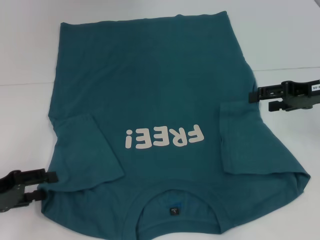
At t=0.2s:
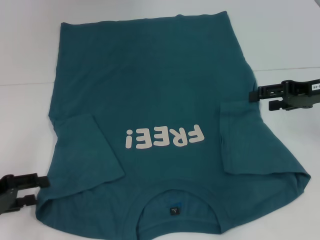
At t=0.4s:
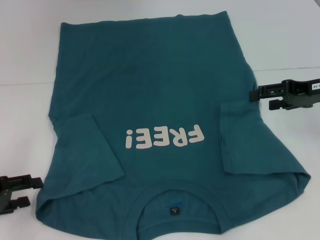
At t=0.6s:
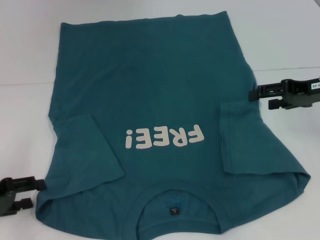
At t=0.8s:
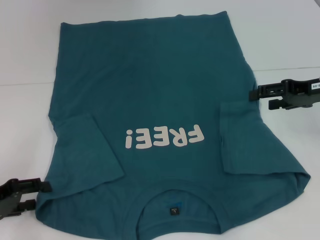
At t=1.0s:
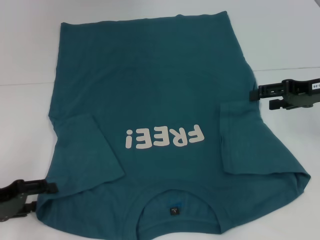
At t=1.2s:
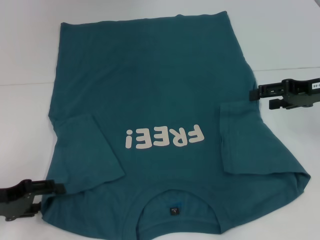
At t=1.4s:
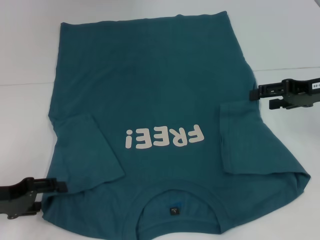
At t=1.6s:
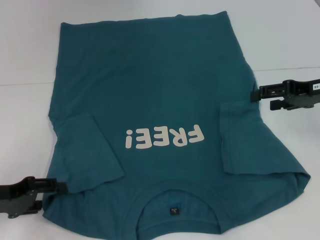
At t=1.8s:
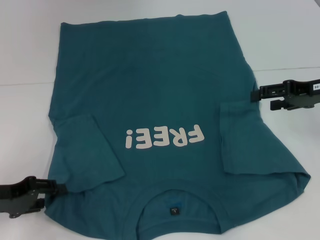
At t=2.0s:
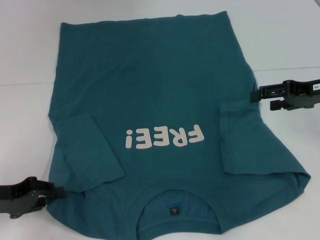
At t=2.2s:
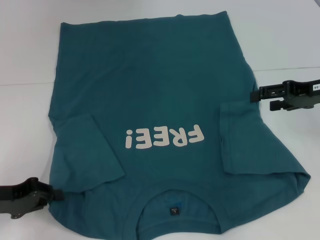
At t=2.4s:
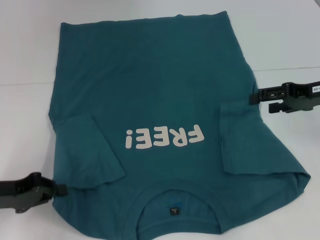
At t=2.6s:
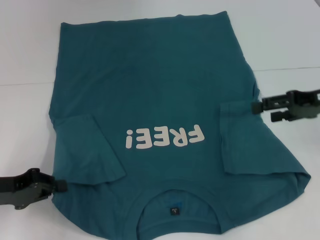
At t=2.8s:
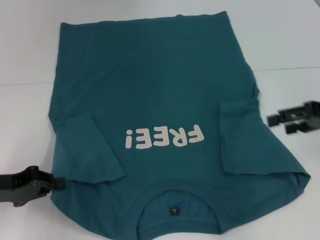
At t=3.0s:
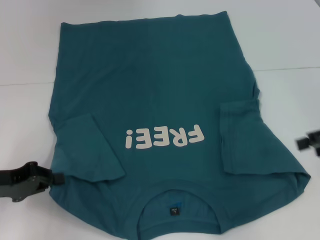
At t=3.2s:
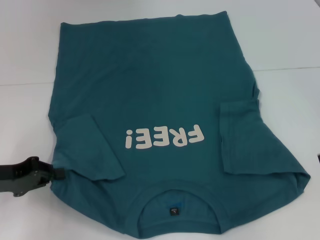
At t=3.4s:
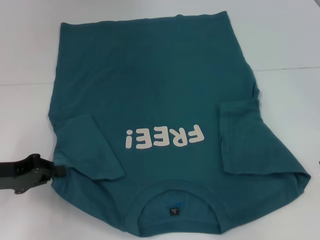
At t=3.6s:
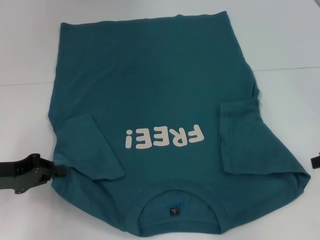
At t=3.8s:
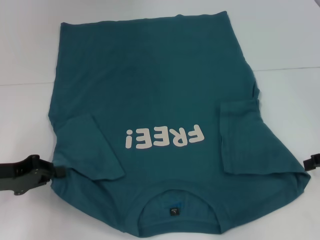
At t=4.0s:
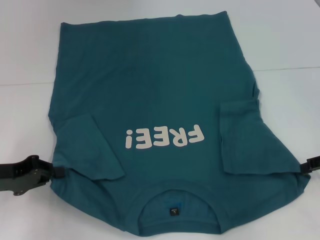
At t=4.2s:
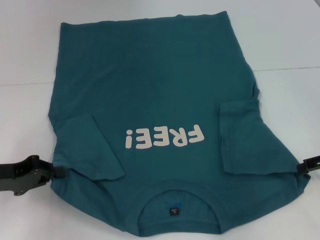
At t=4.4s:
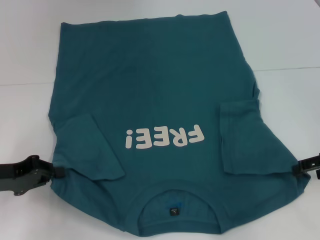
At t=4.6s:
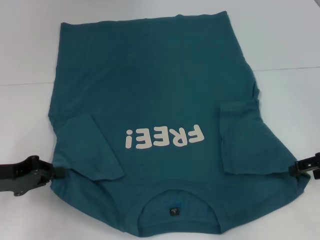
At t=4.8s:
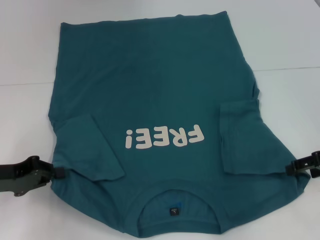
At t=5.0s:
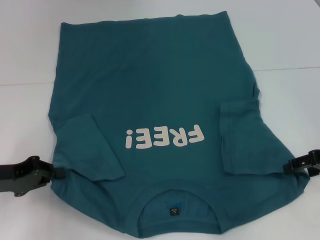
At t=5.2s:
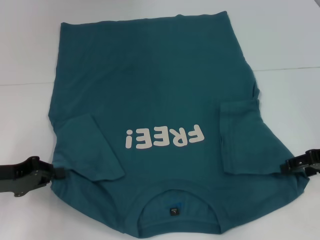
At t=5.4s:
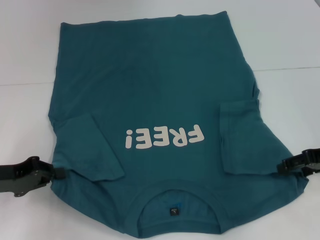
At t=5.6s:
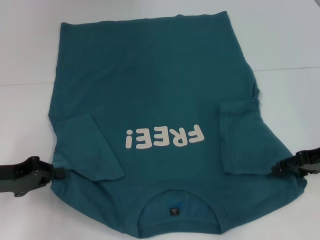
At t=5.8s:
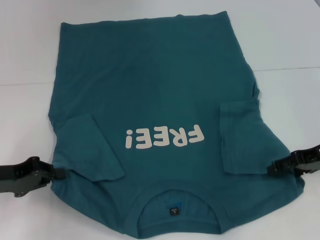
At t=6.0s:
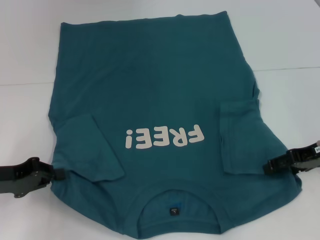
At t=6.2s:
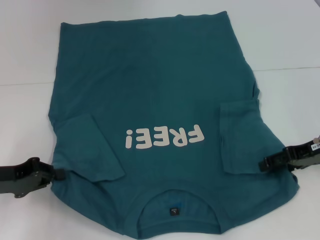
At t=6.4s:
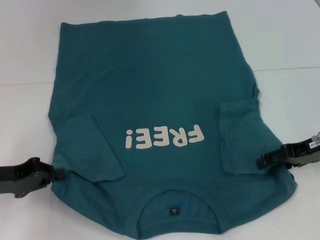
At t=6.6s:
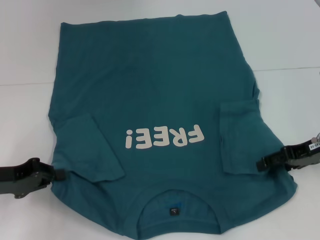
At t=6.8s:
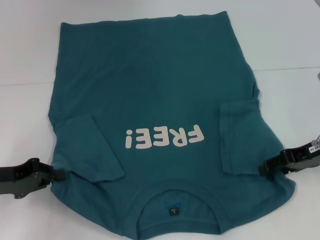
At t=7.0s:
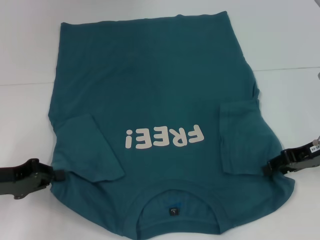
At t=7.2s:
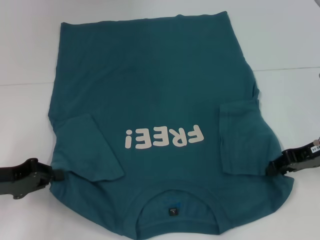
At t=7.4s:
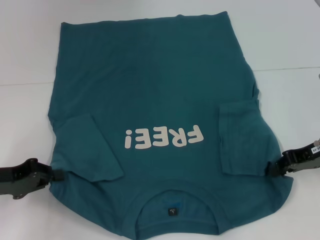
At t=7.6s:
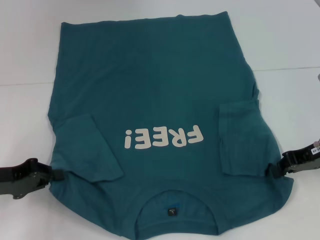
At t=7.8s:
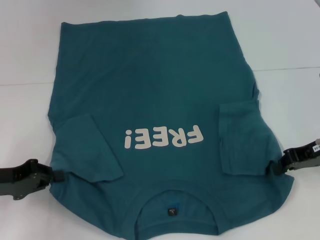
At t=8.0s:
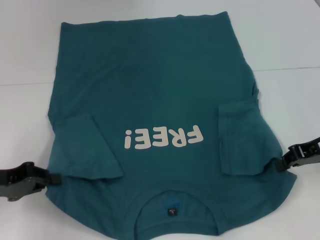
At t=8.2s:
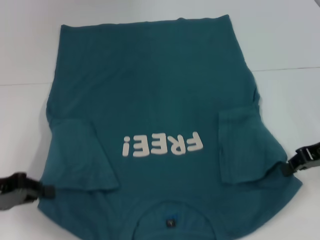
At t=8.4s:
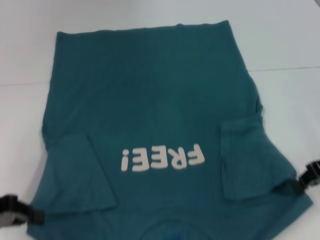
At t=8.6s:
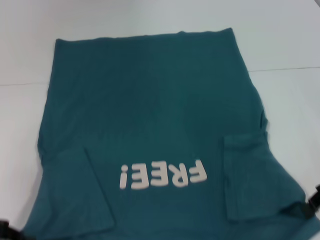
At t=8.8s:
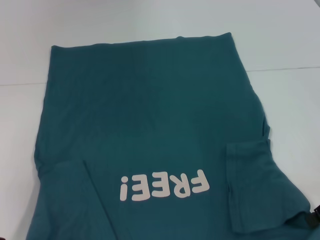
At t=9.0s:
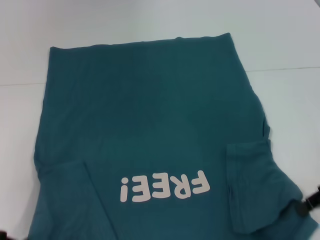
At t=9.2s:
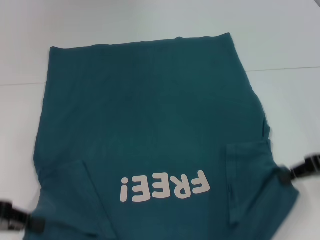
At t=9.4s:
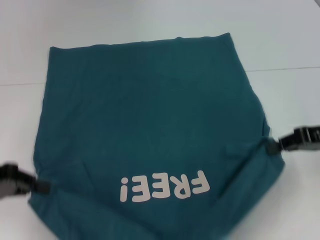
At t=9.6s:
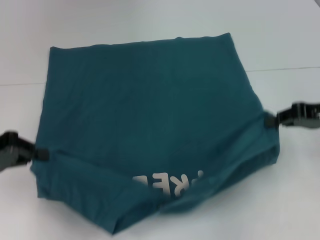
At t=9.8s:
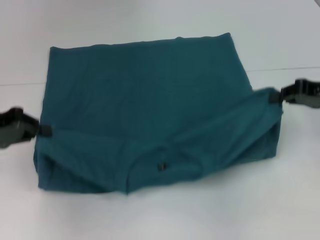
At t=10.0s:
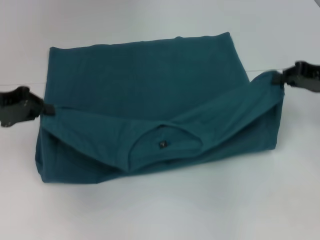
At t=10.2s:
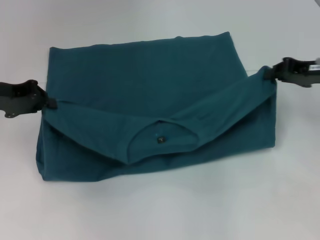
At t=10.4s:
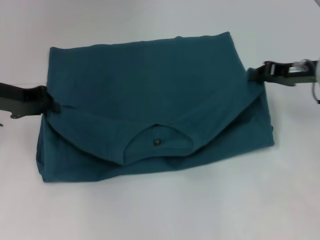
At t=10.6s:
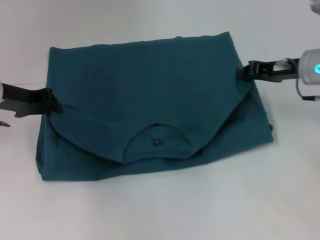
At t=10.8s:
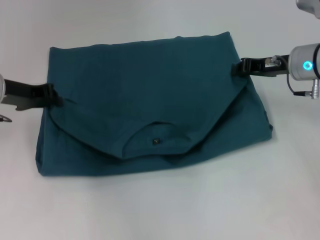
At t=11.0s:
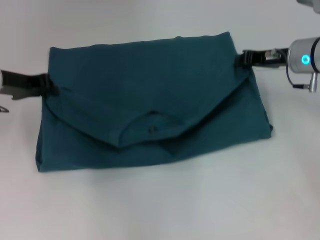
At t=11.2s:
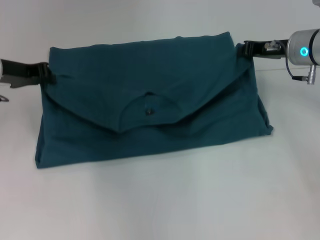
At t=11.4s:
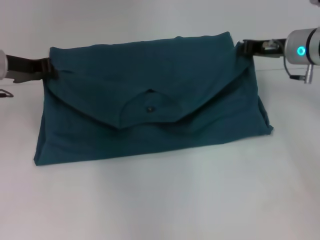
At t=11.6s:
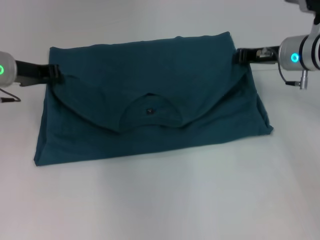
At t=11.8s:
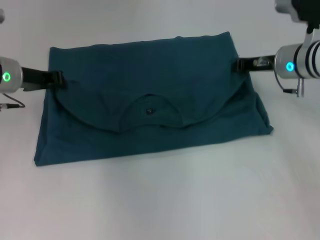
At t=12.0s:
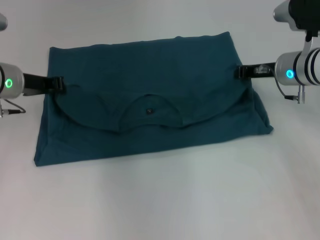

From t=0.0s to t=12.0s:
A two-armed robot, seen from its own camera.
Step, from t=0.0s to t=2.2s: Grab the bottom left corner with your left hand.
Step, from t=2.4s to t=7.4s: Grab the bottom right corner with your right hand.
From t=0.0s to t=1.6s: The grippers make only small movements.
From t=1.6s to t=3.0s: The right gripper is displaced backward and to the right by approximately 10 cm. The left gripper closes up.
From t=3.0s to t=4.4s: The right gripper shifts approximately 5 cm downward.
From t=4.4s to t=6.0s: The right gripper shifts by roughly 5 cm.
From t=6.0s to t=7.6s: The right gripper closes up.
From t=7.6s to t=9.0s: The two grippers go some 5 cm backward.
From t=9.0s to t=10.4s: Both grippers travel together forward, roughly 15 cm.
From t=10.4s to t=12.0s: The left gripper ends up some 5 cm from where it was, while the right gripper heads to the left, covering roughly 5 cm.

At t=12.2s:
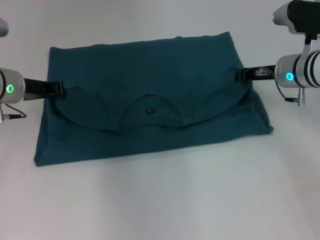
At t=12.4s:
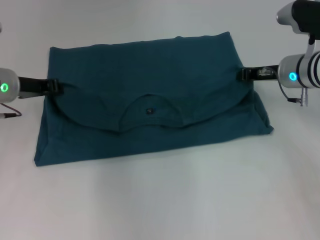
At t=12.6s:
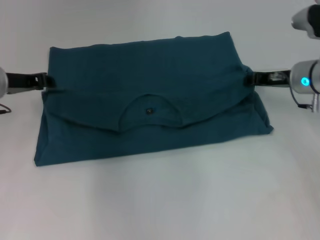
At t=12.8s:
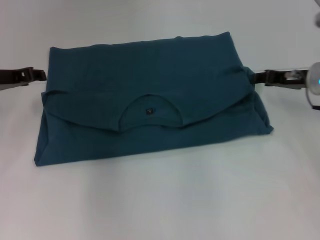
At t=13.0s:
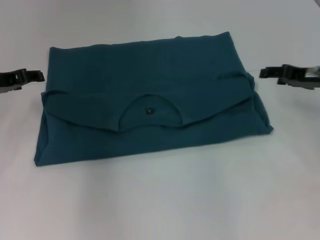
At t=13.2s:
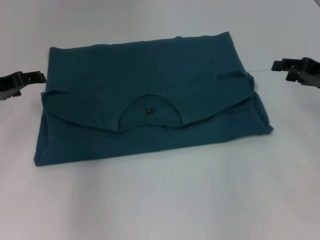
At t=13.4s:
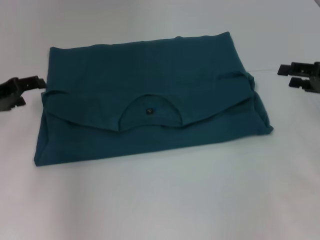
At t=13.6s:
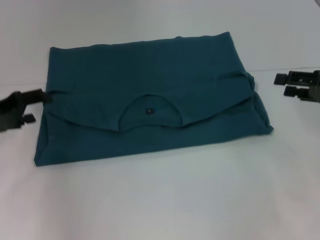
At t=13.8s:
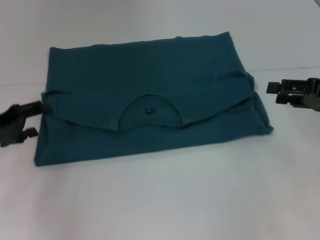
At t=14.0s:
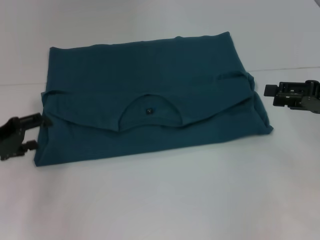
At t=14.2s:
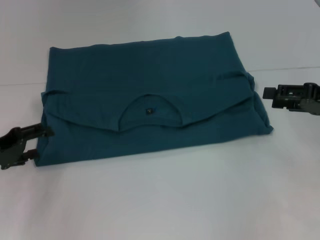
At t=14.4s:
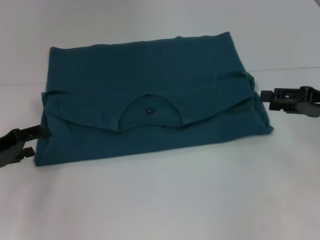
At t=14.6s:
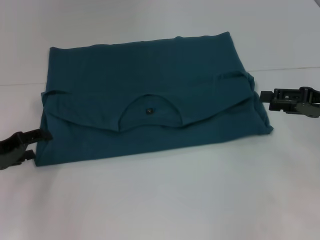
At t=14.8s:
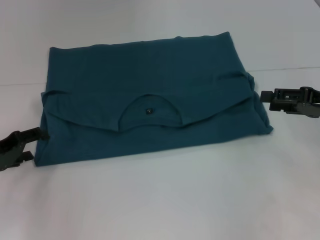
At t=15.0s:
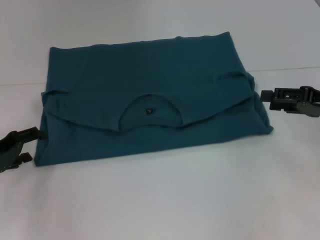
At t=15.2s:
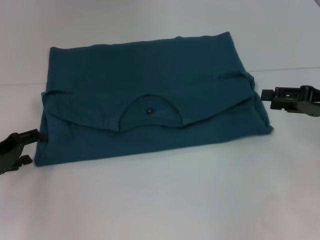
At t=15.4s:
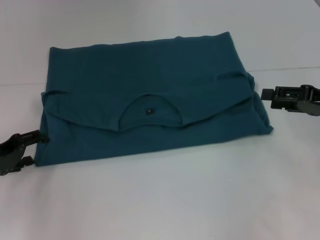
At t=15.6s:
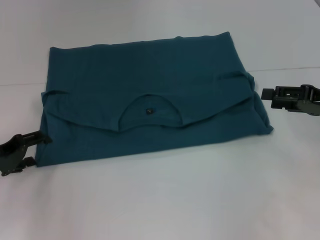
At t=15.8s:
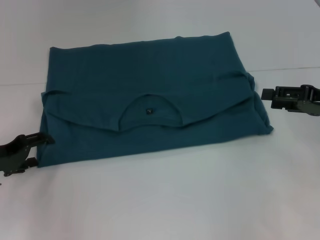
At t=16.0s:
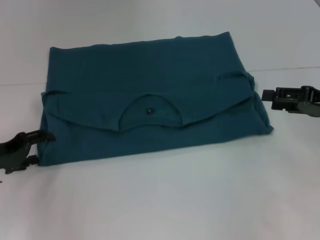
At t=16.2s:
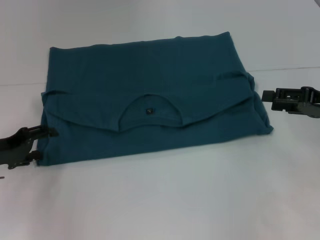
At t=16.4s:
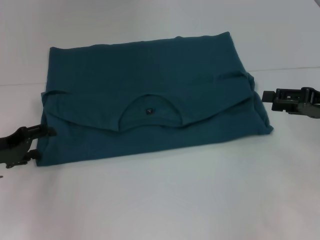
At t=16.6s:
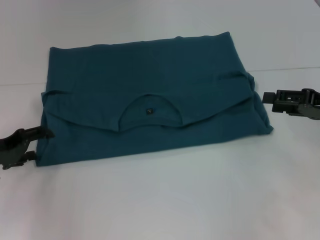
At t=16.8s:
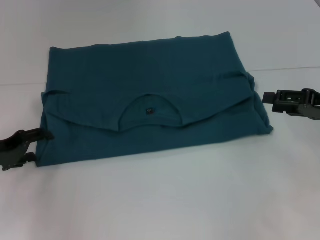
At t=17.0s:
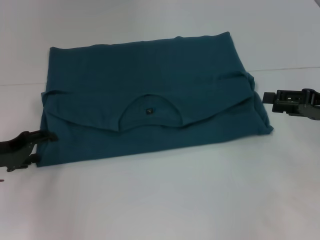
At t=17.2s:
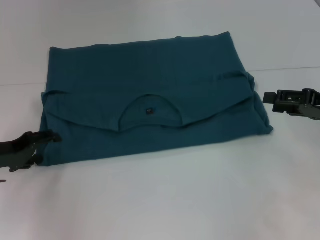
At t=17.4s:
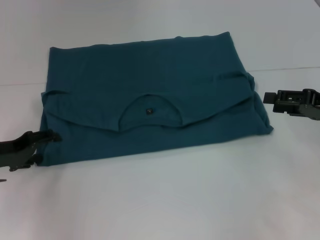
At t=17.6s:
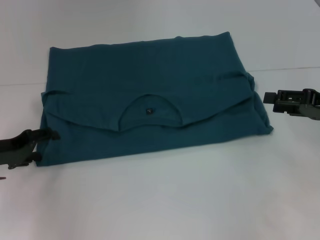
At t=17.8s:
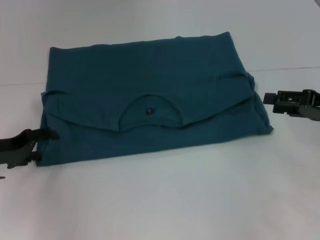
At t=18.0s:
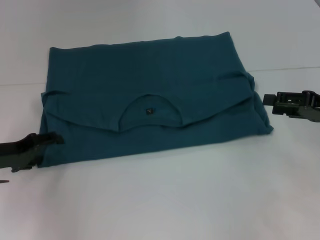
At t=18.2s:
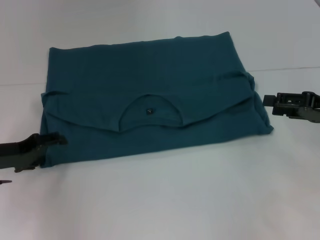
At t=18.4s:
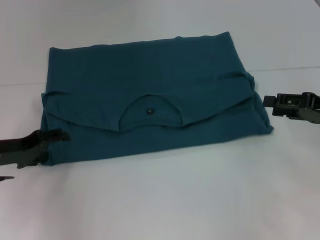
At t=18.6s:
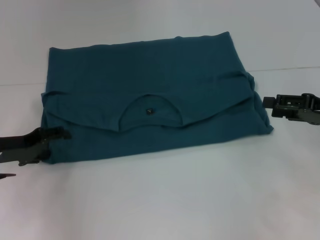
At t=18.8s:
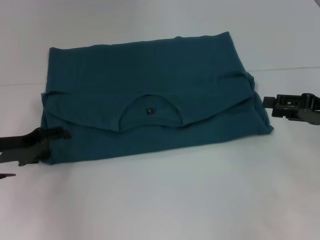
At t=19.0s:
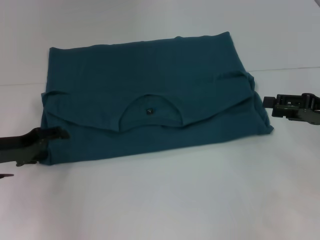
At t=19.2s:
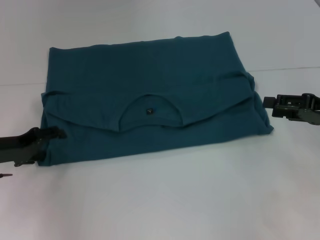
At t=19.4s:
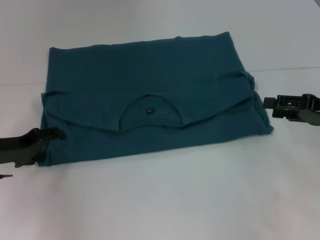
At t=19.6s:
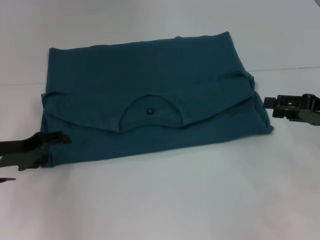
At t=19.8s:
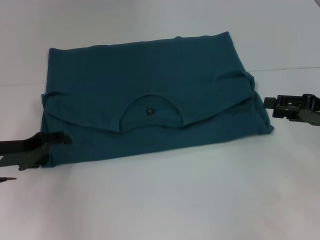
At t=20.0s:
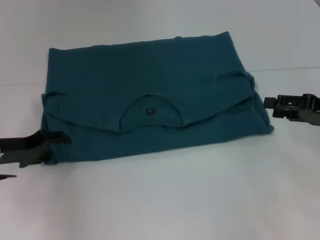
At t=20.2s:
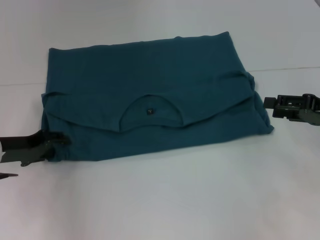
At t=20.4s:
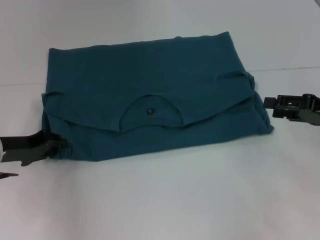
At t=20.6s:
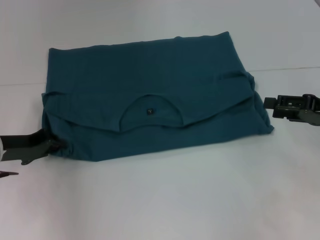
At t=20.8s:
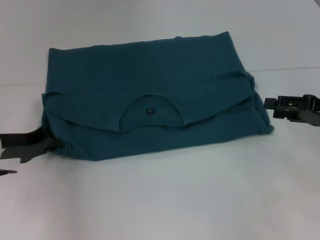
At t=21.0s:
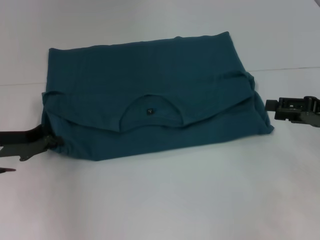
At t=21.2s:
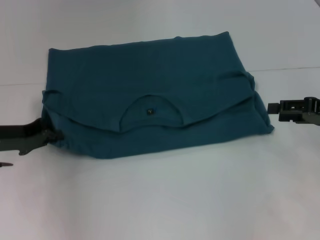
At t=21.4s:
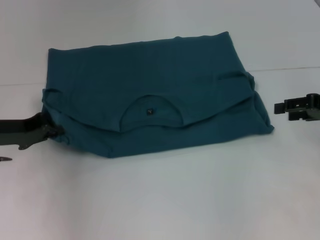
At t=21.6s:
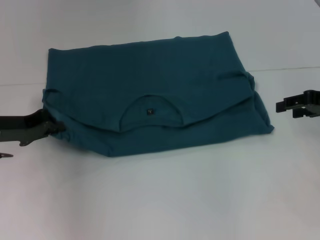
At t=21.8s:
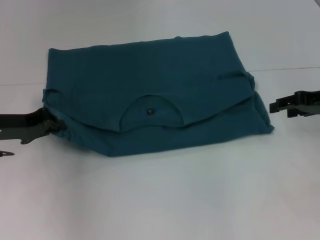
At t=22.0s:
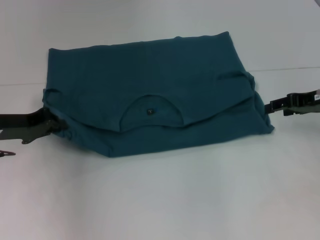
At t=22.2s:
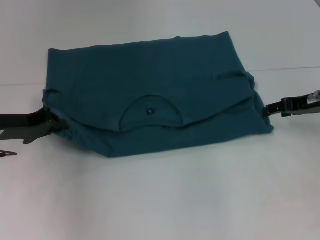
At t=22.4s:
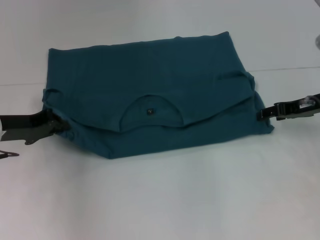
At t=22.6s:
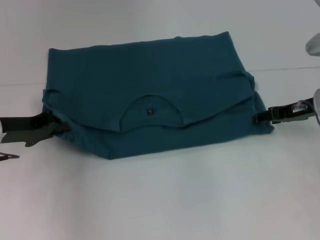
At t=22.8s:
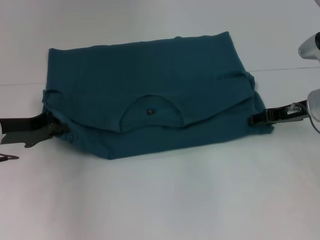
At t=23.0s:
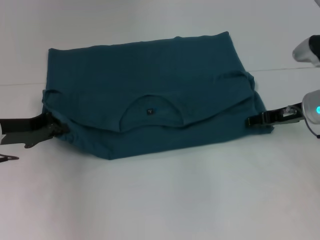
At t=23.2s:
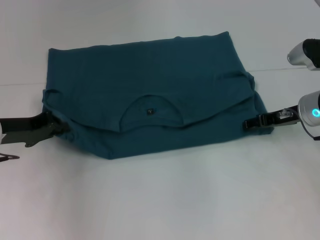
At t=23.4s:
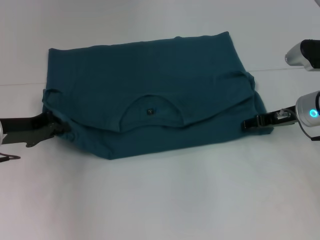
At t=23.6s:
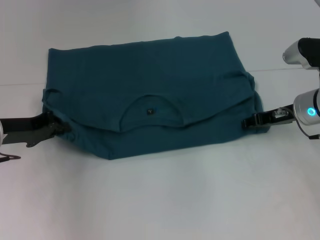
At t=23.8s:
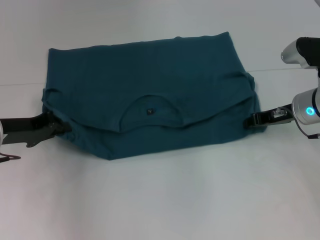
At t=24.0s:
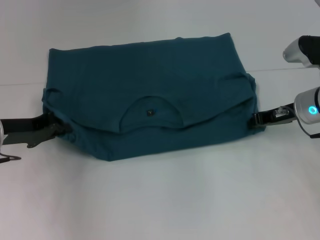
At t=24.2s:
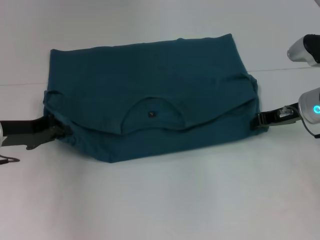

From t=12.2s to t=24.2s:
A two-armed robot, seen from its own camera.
From t=12.2s to t=13.8s: The left gripper is displaced backward and to the left by approximately 10 cm, and opens. The right gripper travels backward and to the right by roughly 15 cm, and opens.
From t=13.8s to t=18.2s: The grippers move only a little.
From t=18.2s to t=19.8s: Both grippers stay put.
From t=19.8s to t=21.2s: The left gripper closes.
From t=21.2s to t=22.6s: The right gripper travels forward and to the left by approximately 10 cm.
From t=22.6s to t=24.2s: The right gripper closes up.
